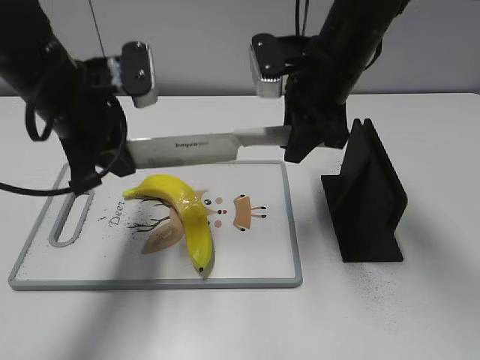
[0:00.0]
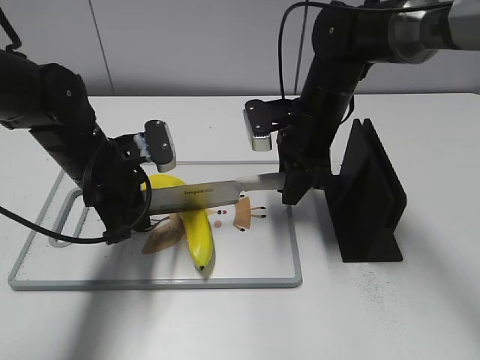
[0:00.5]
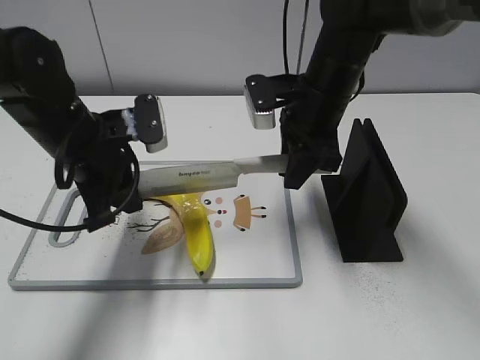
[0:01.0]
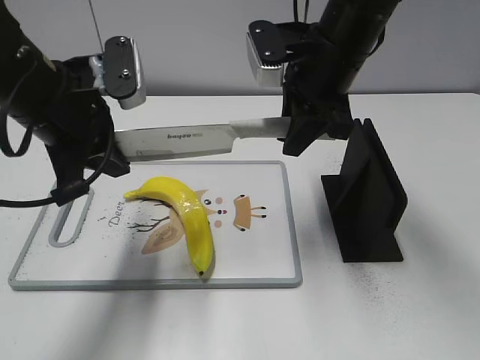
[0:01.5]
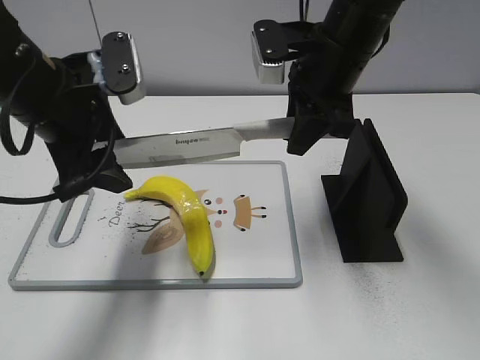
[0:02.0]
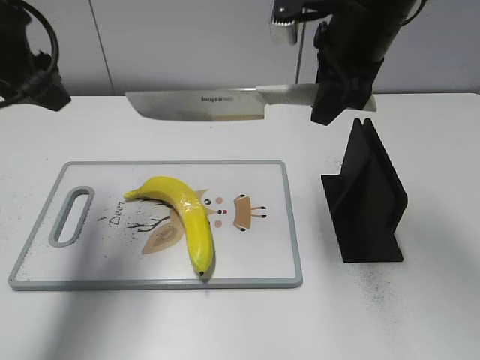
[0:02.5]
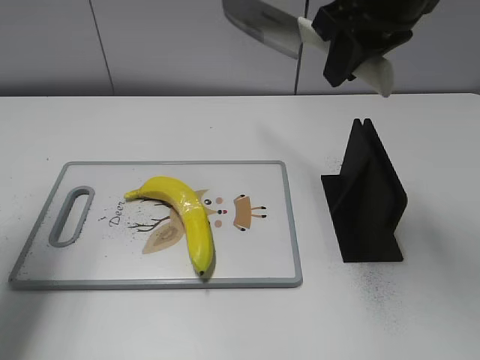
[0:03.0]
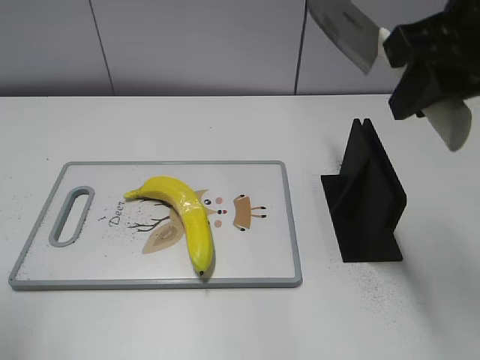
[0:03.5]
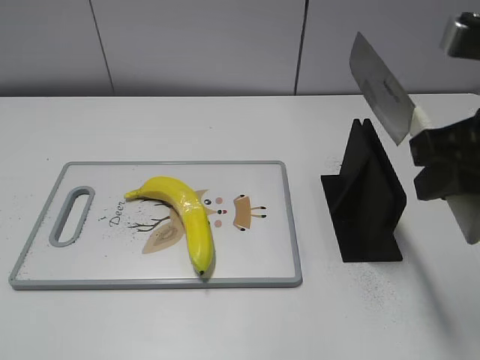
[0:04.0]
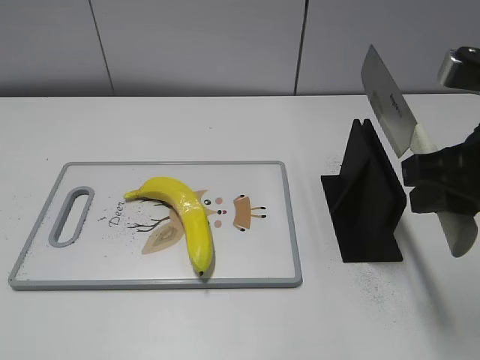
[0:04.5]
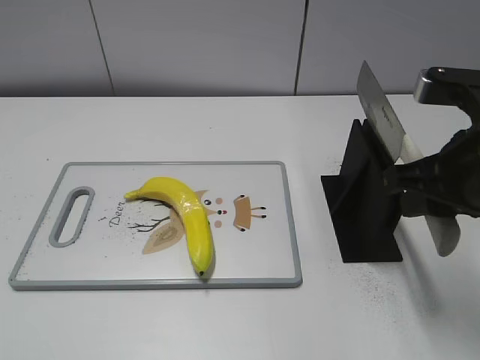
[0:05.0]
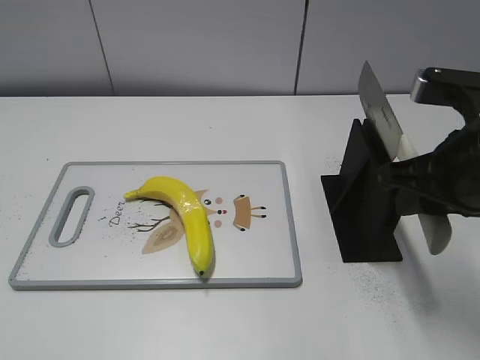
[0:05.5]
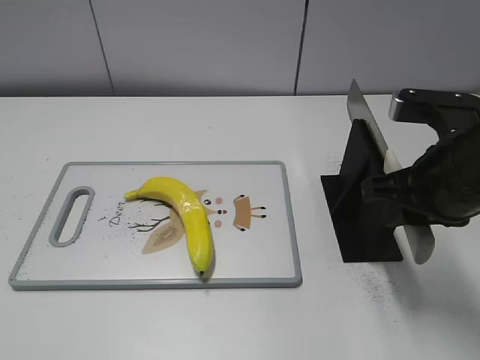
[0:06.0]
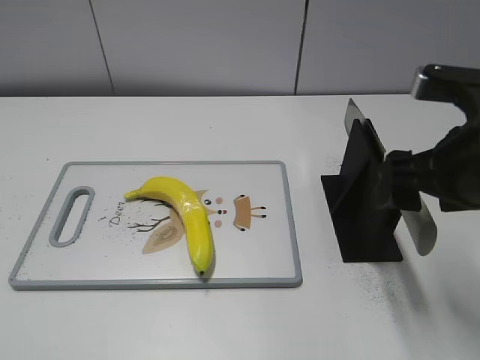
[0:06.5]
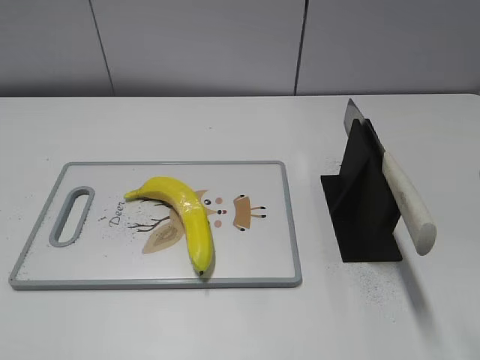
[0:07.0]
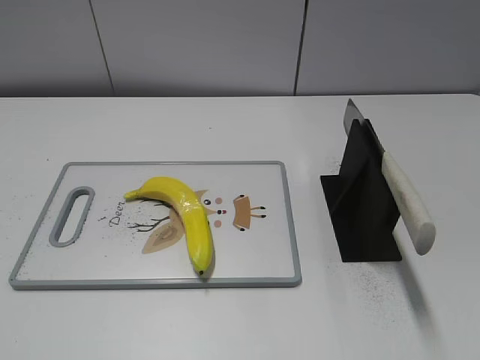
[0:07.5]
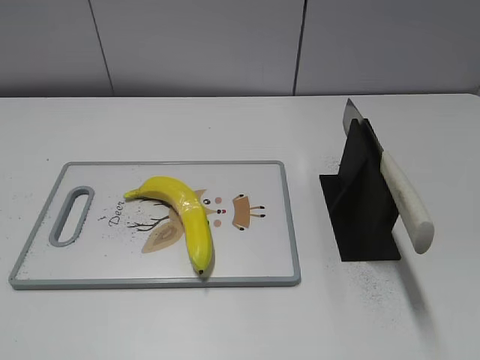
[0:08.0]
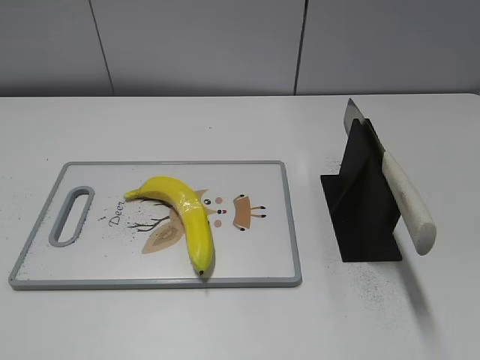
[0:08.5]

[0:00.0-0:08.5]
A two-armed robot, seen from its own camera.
Task of the whole recording: cut plastic banana.
Step, 2.0 to 2.5 s: Cut the banana with your right hand.
Step, 3.0 to 4.5 s: Lift the knife with your right hand.
Step, 5.0 to 8.5 s: Place the knife on the storage rack with your right hand.
0.0 to 2.0 s: The left gripper goes downward and returns, some 10 cm each way, and opens up. Meanwhile the right gripper moves approximately 10 cm downward and comes back.
2.0 to 4.0 s: The right gripper is displaced backward and to the right by some 20 cm, while the left gripper travels backward and to the left by approximately 30 cm.
4.0 to 6.5 s: The right gripper shifts approximately 5 cm downward, and opens its fingers.
6.5 to 8.5 s: The right gripper moves backward and to the right, about 25 cm.

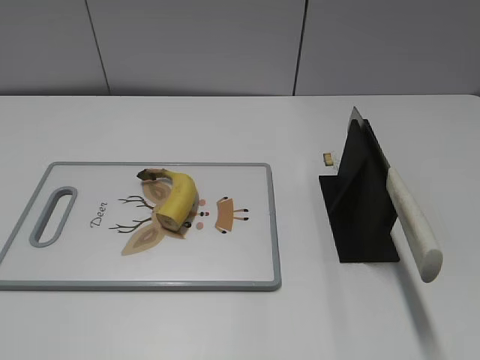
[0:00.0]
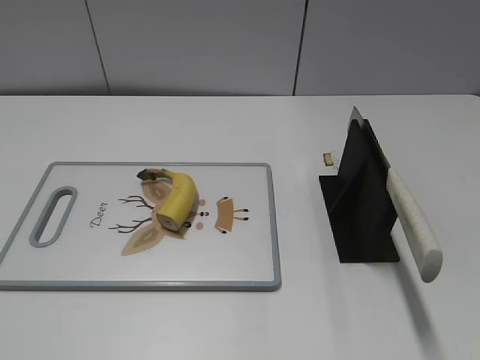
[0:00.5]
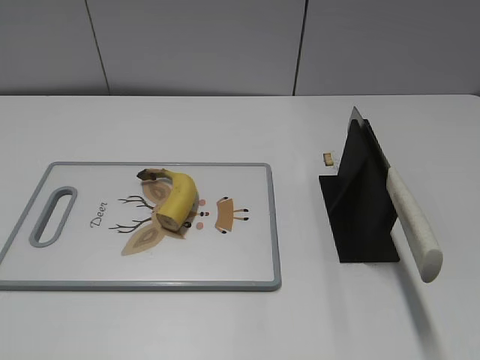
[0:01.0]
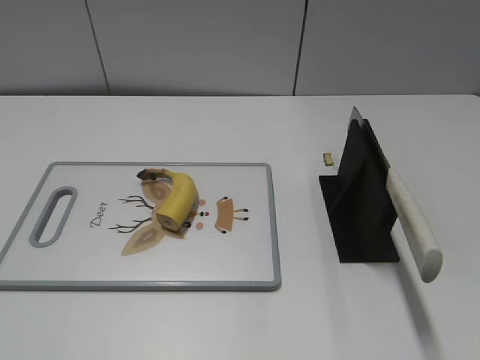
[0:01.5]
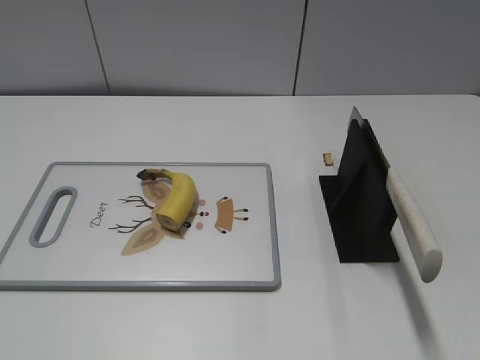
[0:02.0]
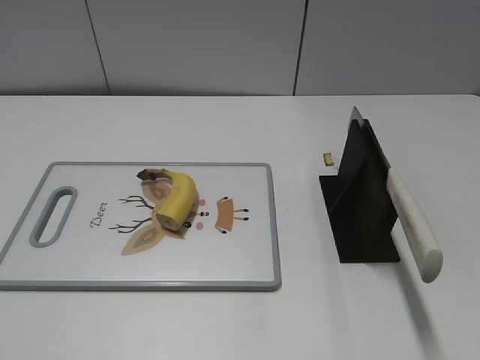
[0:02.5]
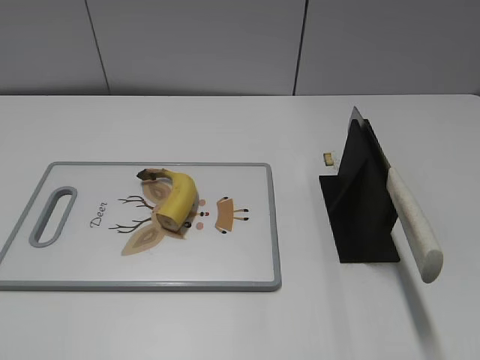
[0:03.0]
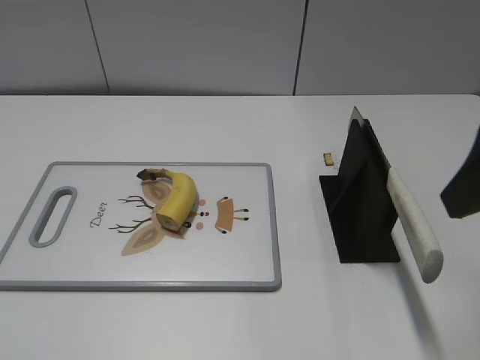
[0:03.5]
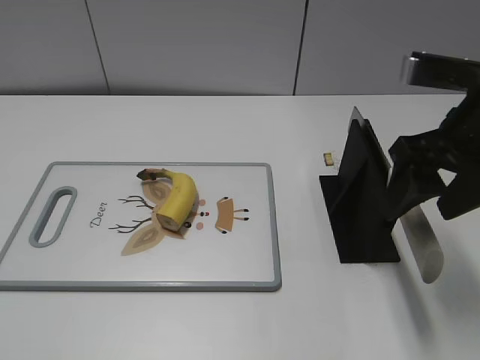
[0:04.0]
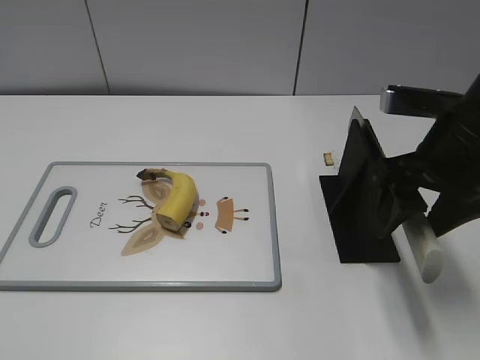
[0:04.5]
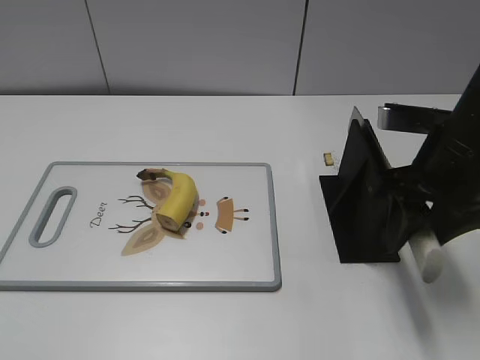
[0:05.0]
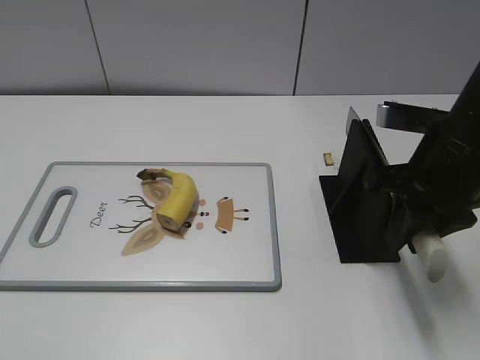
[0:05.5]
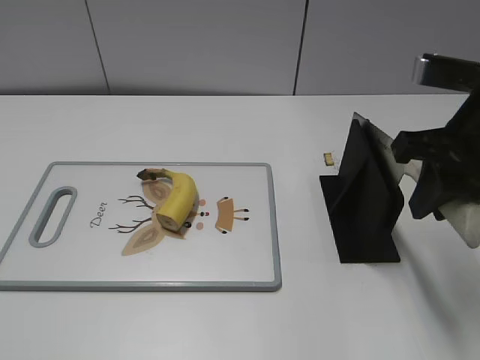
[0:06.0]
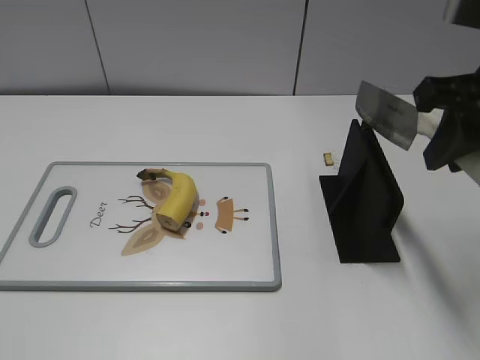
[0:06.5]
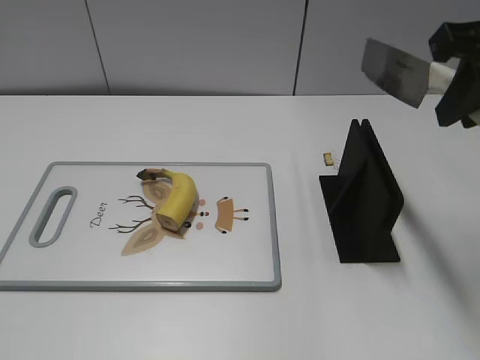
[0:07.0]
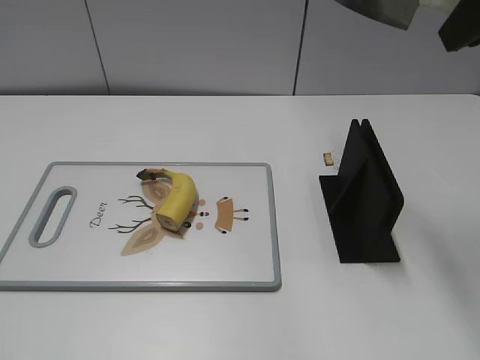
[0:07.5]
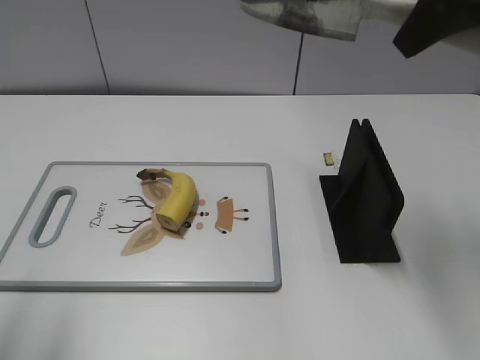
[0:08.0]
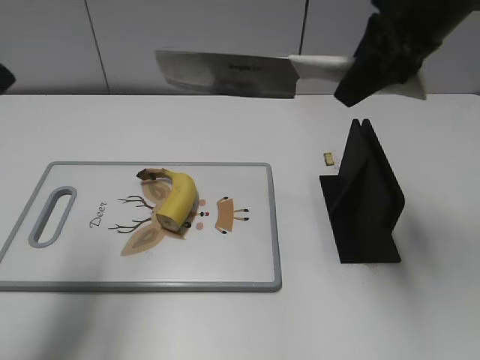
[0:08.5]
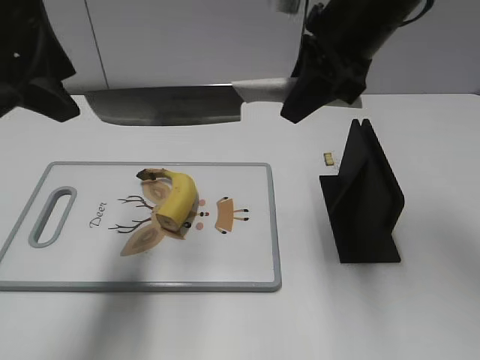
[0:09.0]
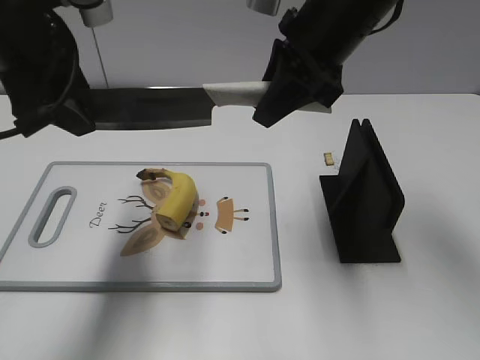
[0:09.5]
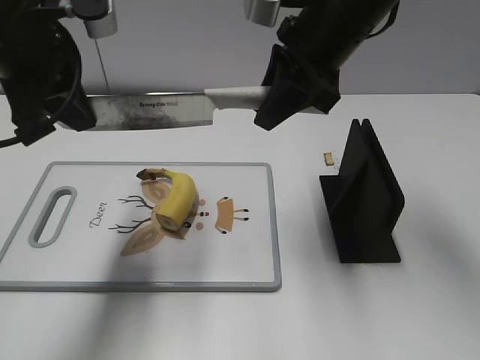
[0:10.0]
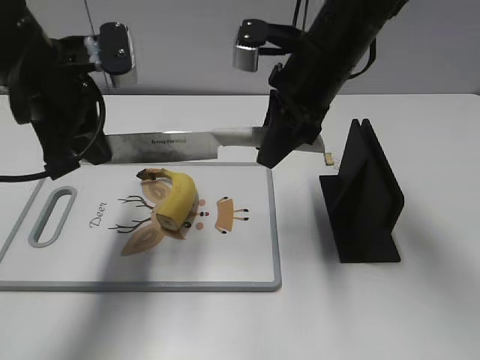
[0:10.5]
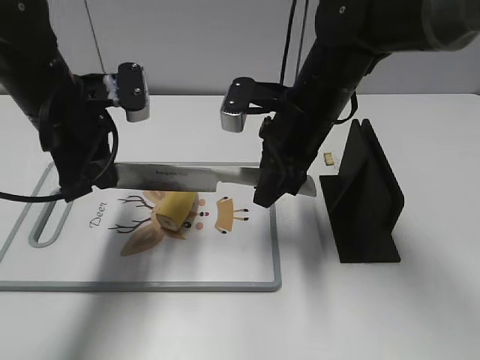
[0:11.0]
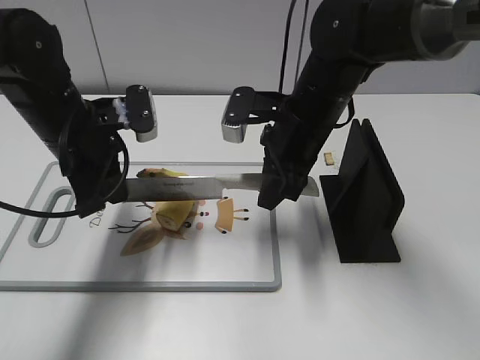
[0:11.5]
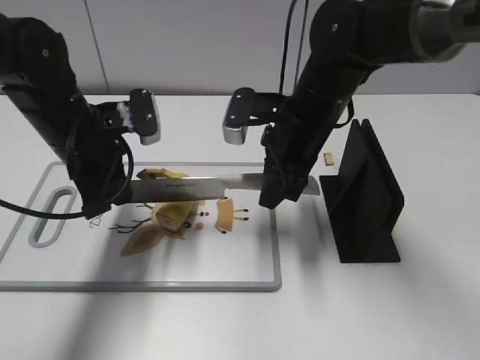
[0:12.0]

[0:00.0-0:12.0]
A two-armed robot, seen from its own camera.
Task of the whole recording: cut banana.
Step, 0.0 to 6.5 s: Grab the knife handle with your right hand.
2.0 to 4.0 s: The right gripper goes some 25 cm forward.
4.0 to 6.0 s: The right gripper closes up.
6.0 to 8.0 s: The left gripper goes approximately 15 cm forward and upward, while the right gripper is displaced upward by approximately 10 cm.
8.0 to 10.0 s: The left gripper moves forward and to the right, some 20 cm, and closes its fingers, while the right gripper is displaced downward, to the left and forward by some 15 cm.
10.0 to 12.0 s: The grippers both shift downward by about 10 cm.

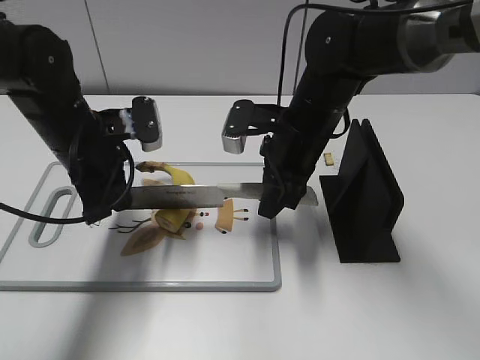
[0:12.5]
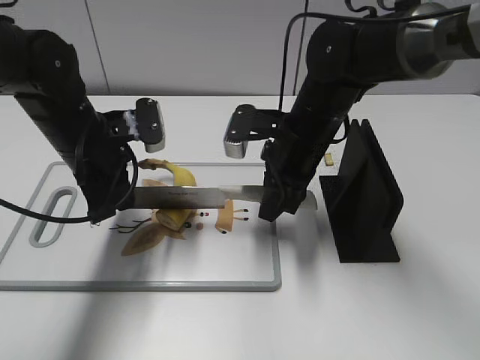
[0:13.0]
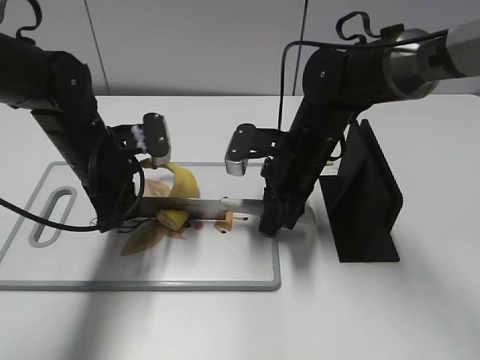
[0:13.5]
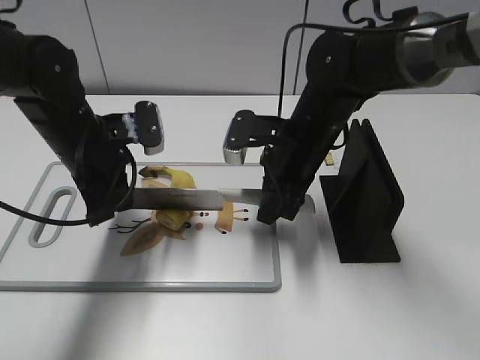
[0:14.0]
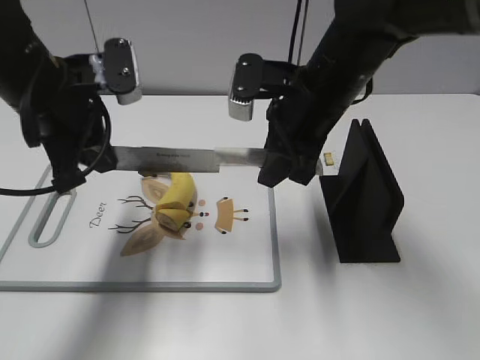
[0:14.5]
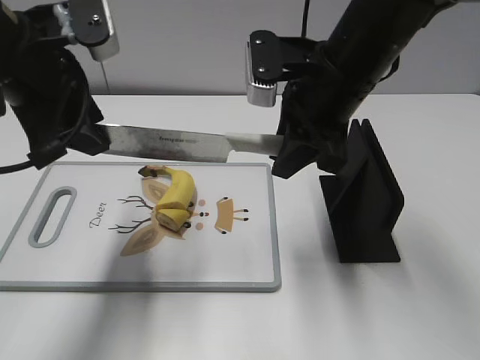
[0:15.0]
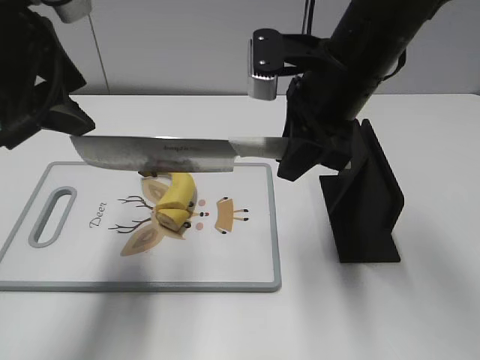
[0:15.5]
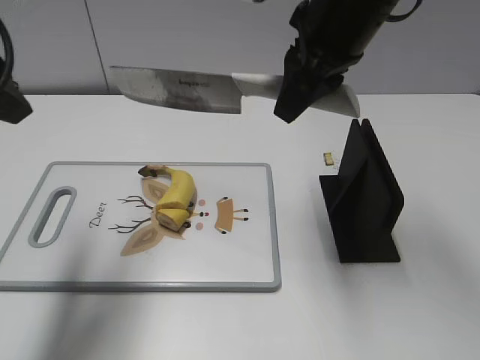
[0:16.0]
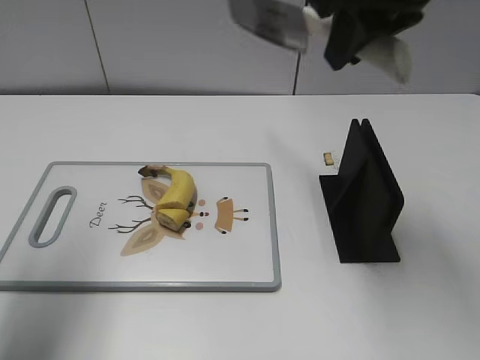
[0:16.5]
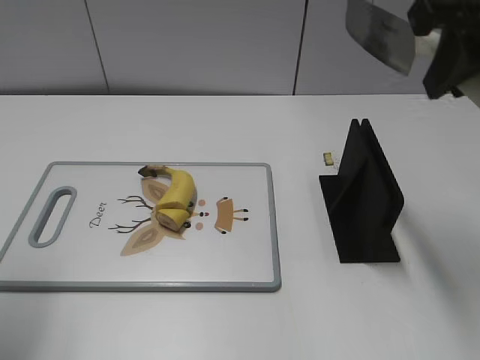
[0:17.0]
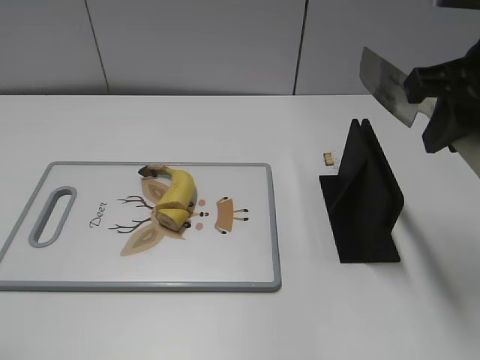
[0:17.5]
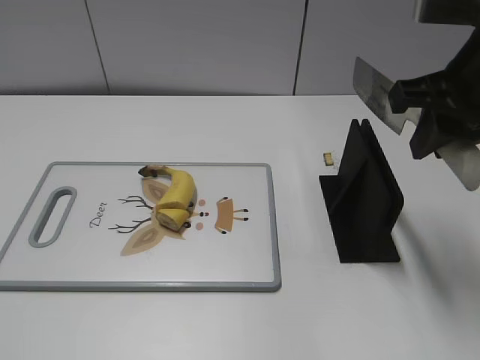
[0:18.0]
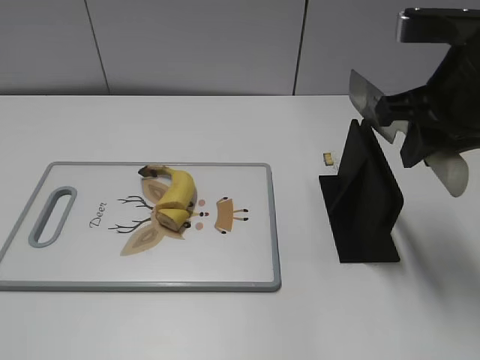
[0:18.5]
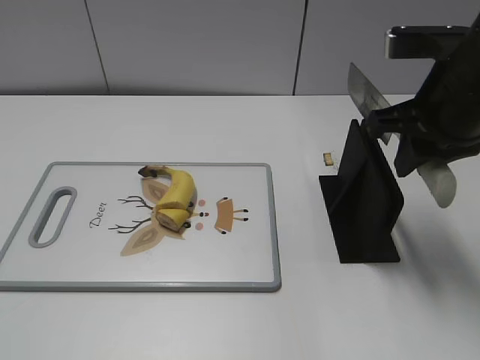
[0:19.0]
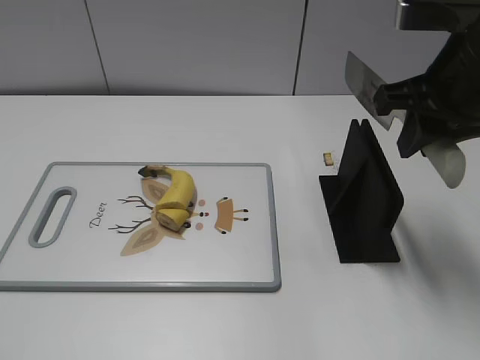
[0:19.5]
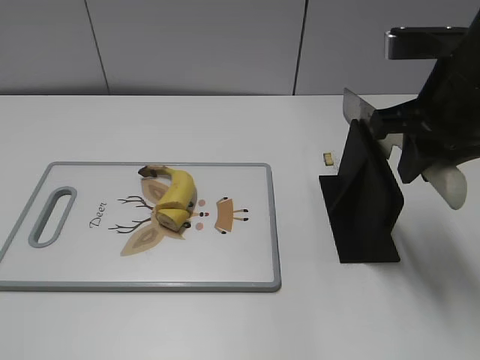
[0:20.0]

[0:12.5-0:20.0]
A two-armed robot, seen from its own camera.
Task of the whole recording: cut banana.
Step, 12.5 to 16.5 s: Cut the banana with your right hand.
Step, 17.0 to 18.5 s: Lift the knife with your right hand.
12.5 to 14.5 s: Both grippers move upward, some 5 cm.
14.5 to 16.5 s: The left gripper shifts roughly 15 cm upward, to the left and backward, and opens up, while the right gripper moves upward, some 15 cm.
16.5 to 18.0 s: The right gripper travels to the right and downward by approximately 10 cm, while the left gripper moves backward, some 20 cm.
18.0 to 20.0 s: There are only small adjustments of the grippers.
